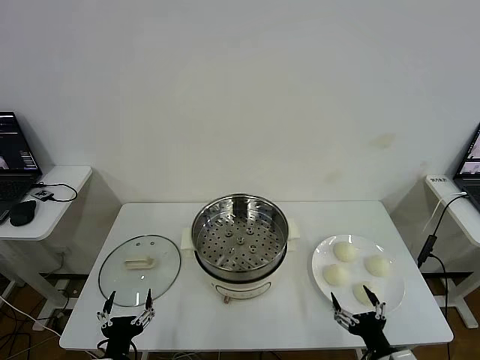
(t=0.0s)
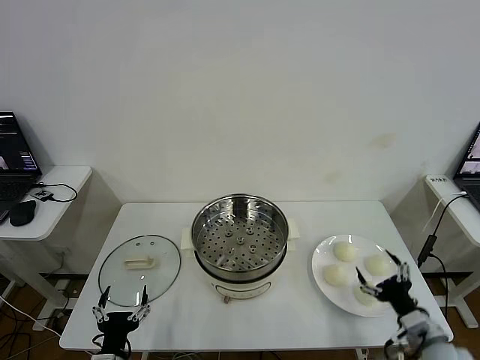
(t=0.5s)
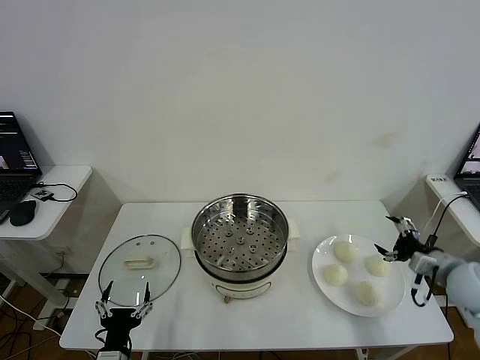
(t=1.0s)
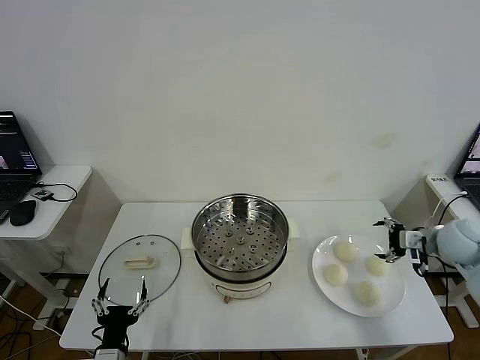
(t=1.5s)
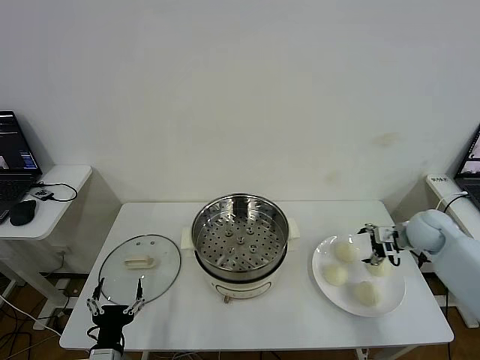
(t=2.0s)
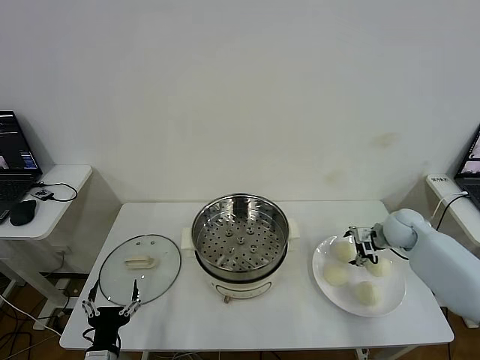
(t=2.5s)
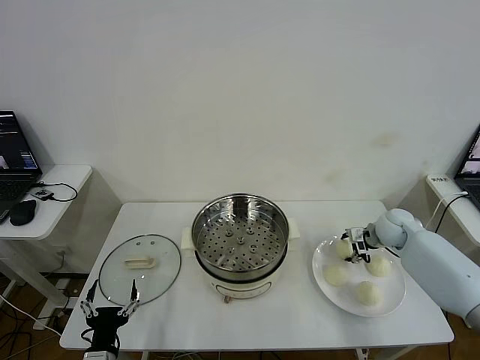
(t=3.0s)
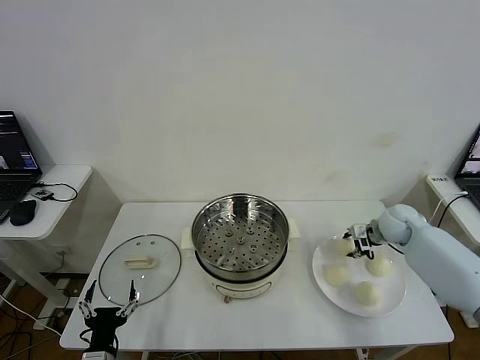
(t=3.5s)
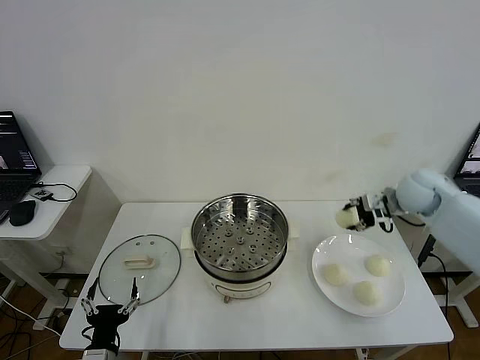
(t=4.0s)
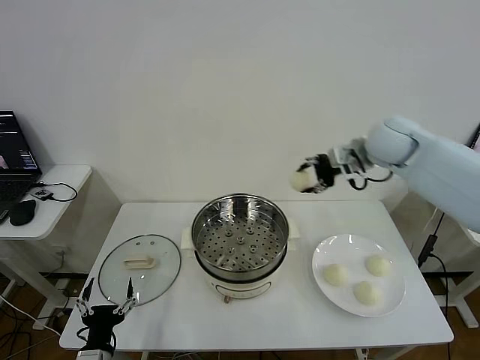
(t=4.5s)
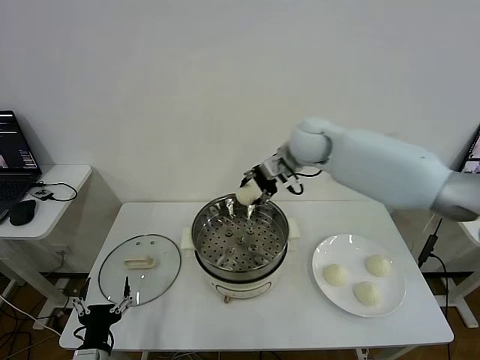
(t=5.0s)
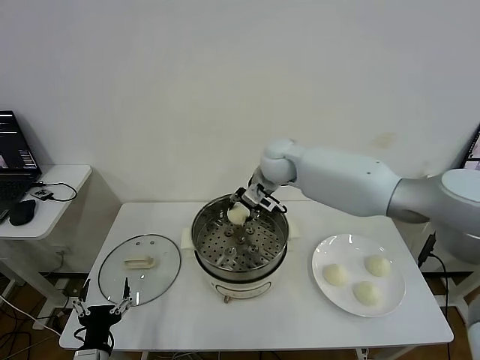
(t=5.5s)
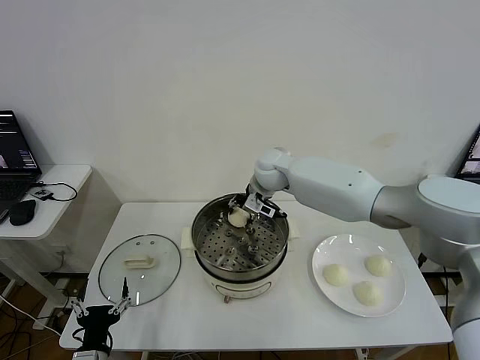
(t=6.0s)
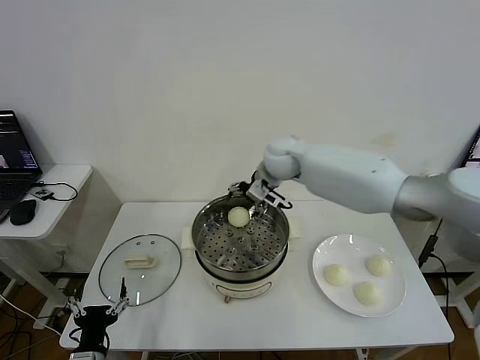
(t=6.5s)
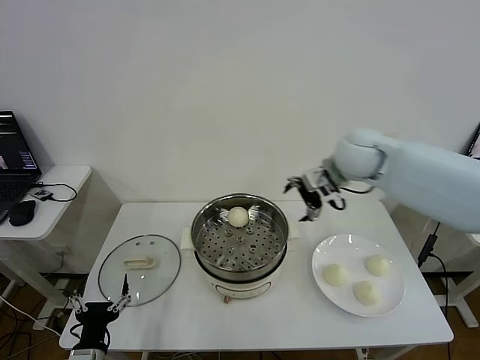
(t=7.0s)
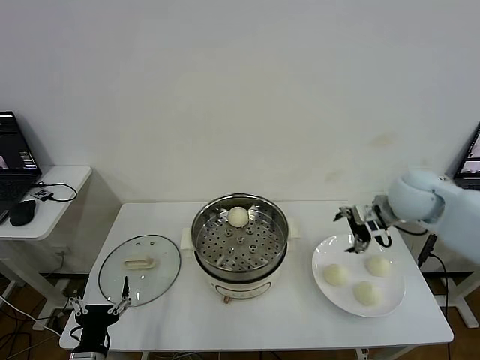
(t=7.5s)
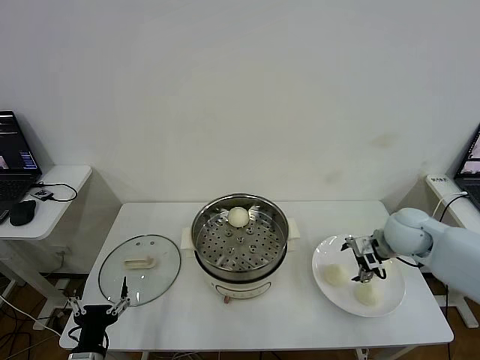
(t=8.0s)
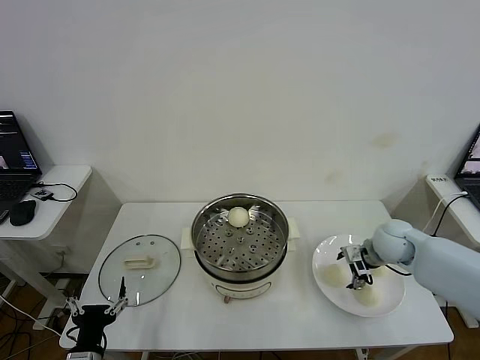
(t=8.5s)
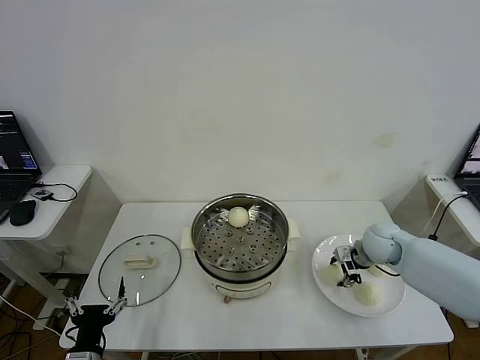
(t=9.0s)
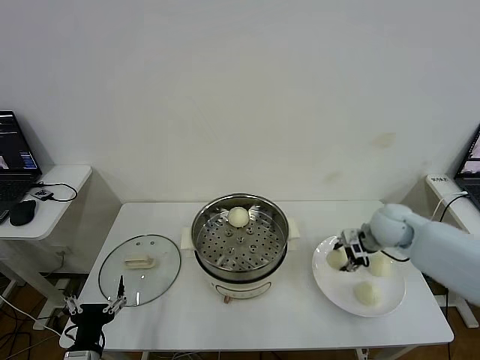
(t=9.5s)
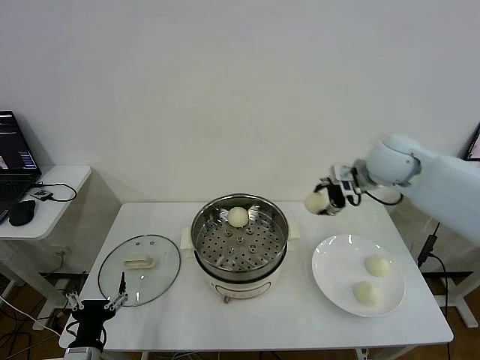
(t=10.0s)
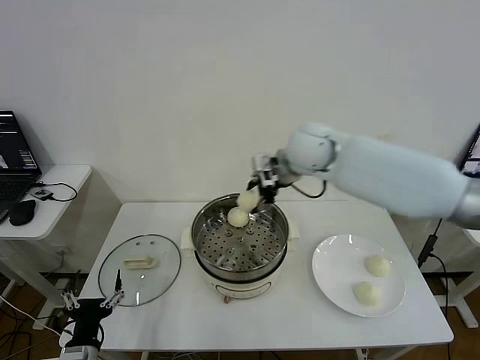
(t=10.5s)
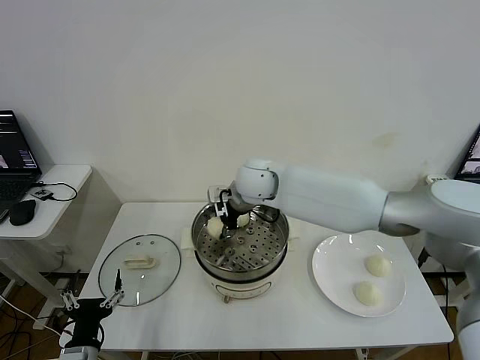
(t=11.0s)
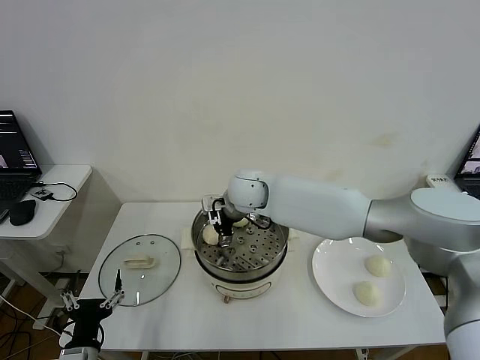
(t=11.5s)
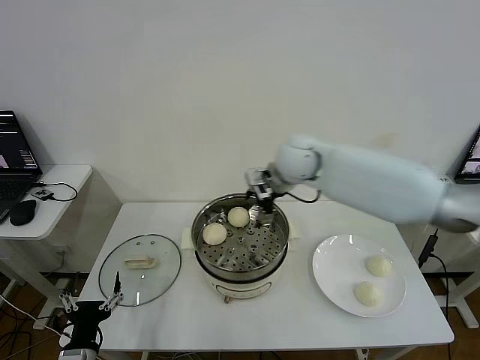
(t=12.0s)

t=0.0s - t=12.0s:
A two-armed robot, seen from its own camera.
Step, t=0.0s - t=3.0s: Grasp the baozi in the plate with right gripper.
Step, t=3.5s - t=6.0s: Place the baozi on the steamer with right gripper.
Step, t=6.5s - t=9.0s: Grasp the baozi in the plate with right gripper.
Step, t=9.5s - t=11.5s: Place the baozi on the steamer with right gripper.
t=2.0s - t=4.0s: The right gripper shifts roughly 15 cm upward, and closes up.
t=4.0s - t=6.0s: The right gripper heads to the left, covering about 30 cm, and opens up.
t=6.0s - t=8.0s: The right gripper moves to the right and backward, approximately 30 cm, and opens.
t=8.0s - t=10.0s: The right gripper travels upward, to the left and forward by approximately 20 cm, and closes up.
t=10.0s - t=12.0s: The right gripper heads to the left, covering roughly 10 cm, and opens.

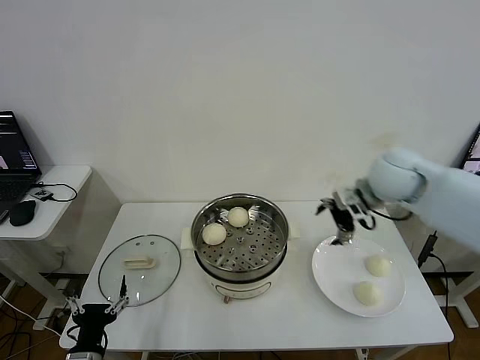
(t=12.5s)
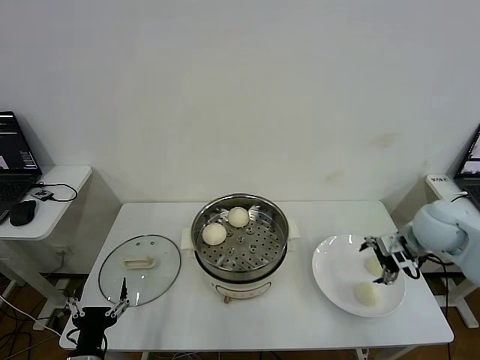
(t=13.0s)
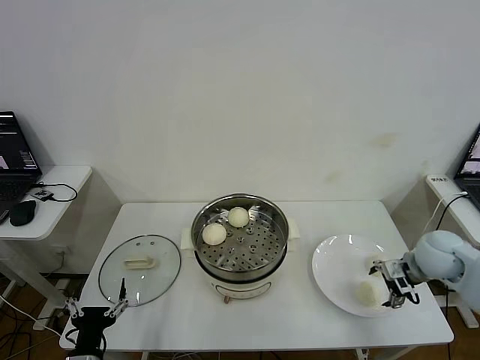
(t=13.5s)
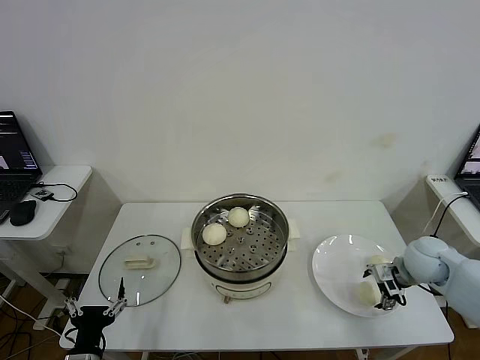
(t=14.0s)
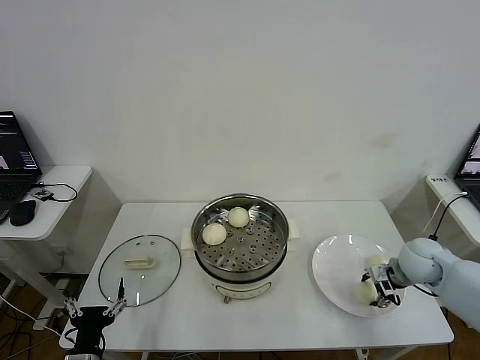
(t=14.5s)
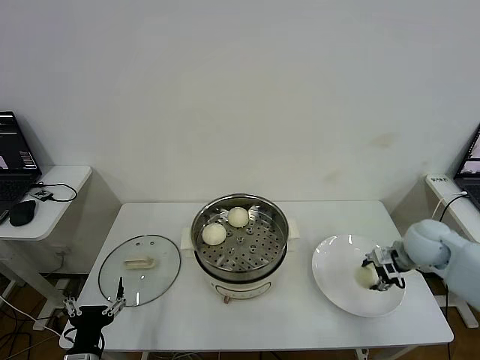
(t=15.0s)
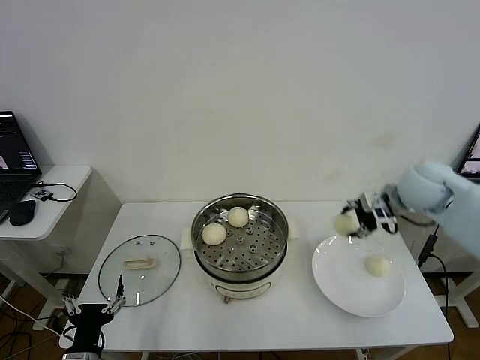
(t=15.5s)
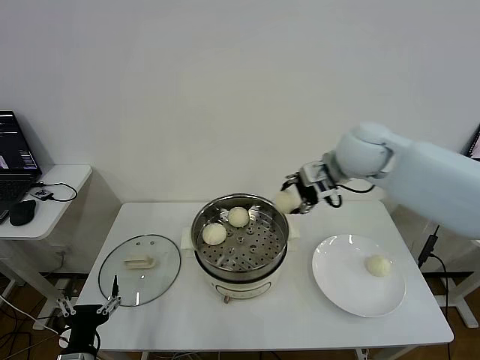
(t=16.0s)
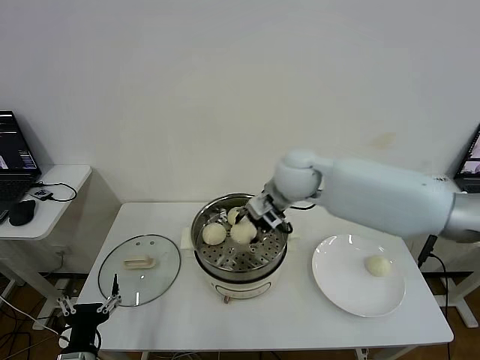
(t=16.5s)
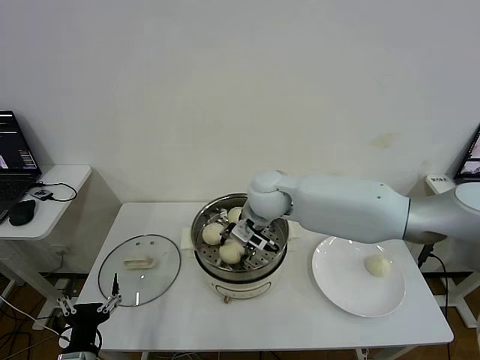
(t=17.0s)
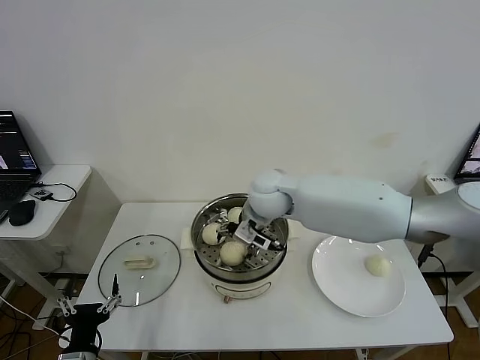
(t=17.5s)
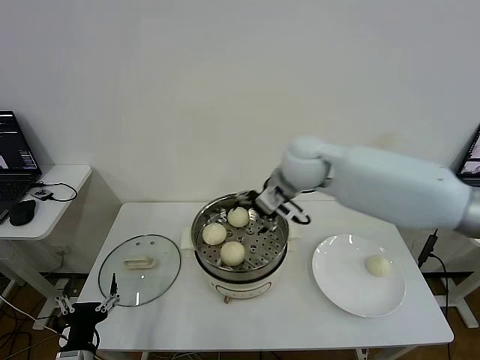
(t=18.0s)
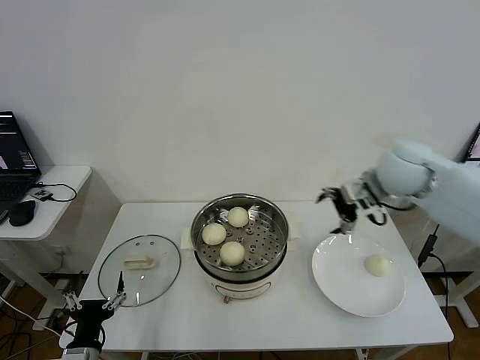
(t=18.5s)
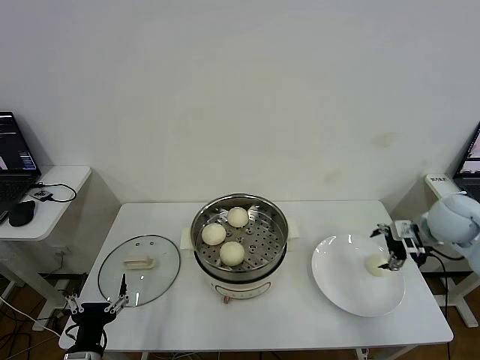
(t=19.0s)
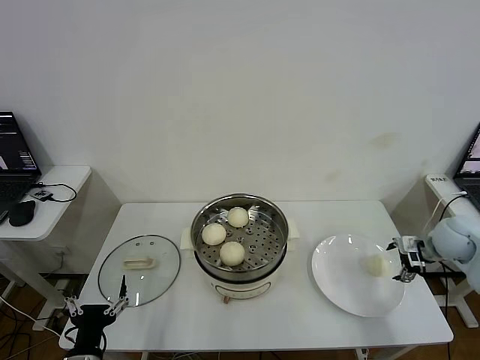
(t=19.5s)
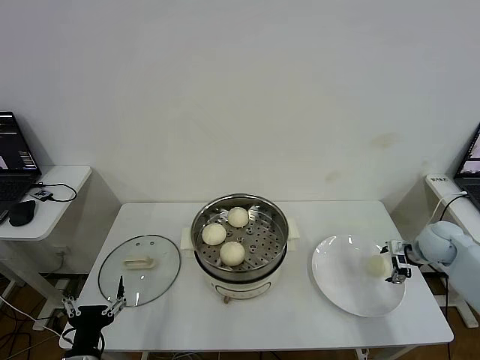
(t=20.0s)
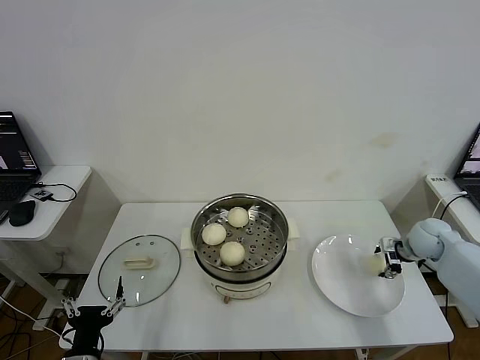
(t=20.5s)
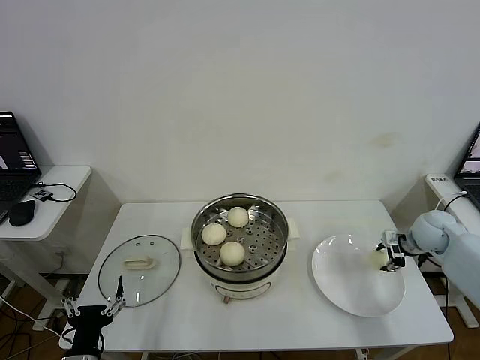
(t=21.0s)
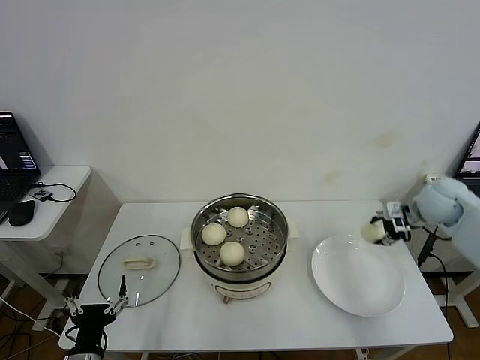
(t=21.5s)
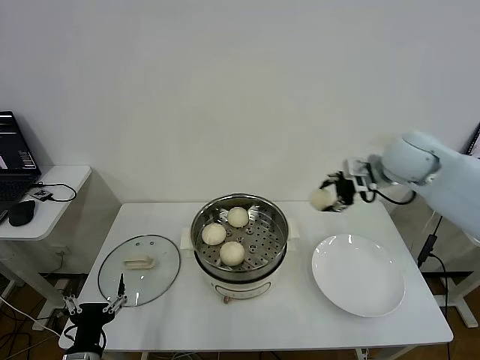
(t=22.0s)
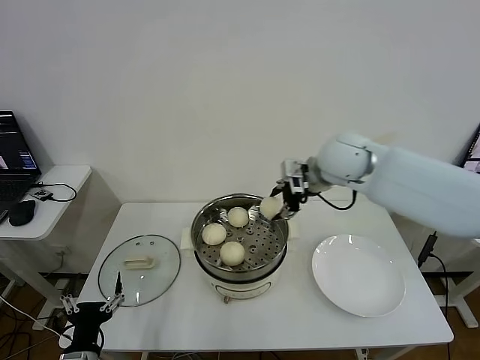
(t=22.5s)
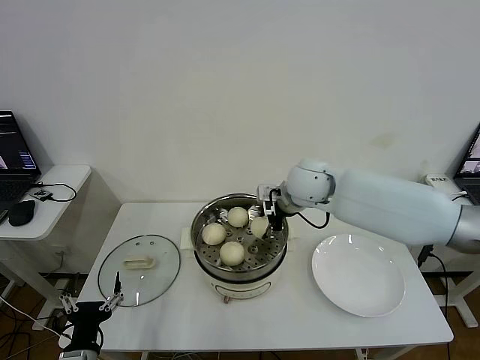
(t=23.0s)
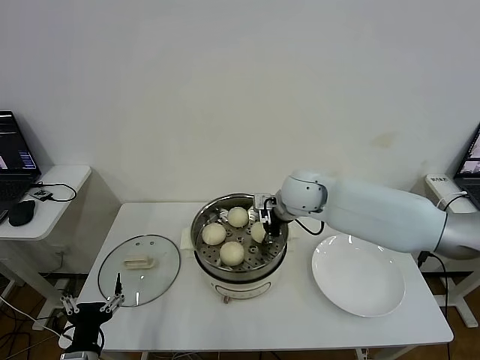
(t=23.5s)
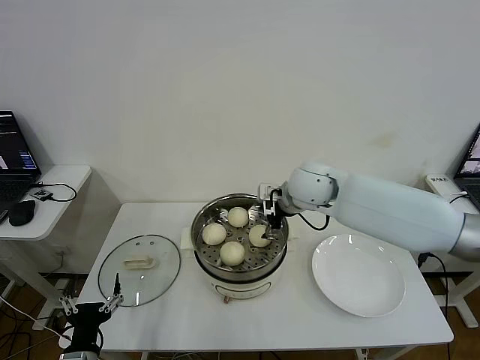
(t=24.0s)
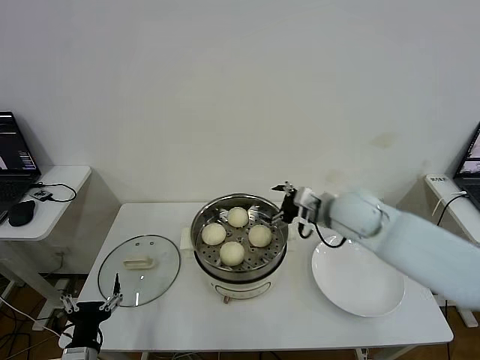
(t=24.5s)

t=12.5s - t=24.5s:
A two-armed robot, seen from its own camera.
Step, t=12.5s - t=14.5s: Grasp the baozi in the plate with right gripper.
Step, t=15.0s - t=17.0s: Place the baozi on the steamer with right gripper.
Step, t=17.5s - t=20.5s: Grasp the baozi in the plate with right gripper.
Step, t=21.0s - t=23.5s: Place the baozi on the steamer with right gripper.
t=12.5s - t=14.5s: The right gripper goes some 20 cm downward and to the right, and closes up.
t=14.5s - t=16.5s: The right gripper goes some 35 cm to the left and upward.
t=16.5s - t=18.5s: The right gripper shifts roughly 20 cm to the right, and opens its fingers.
t=18.5s - t=20.5s: The right gripper moves downward and to the right, some 25 cm, and closes.
t=20.5s - t=22.5s: The right gripper shifts about 35 cm to the left and upward, and closes its fingers.
t=22.5s - t=24.5s: The right gripper goes roughly 10 cm downward and backward, and opens up.

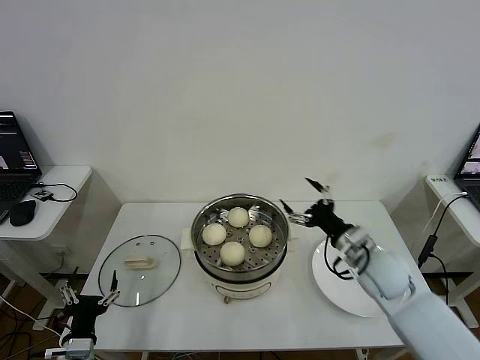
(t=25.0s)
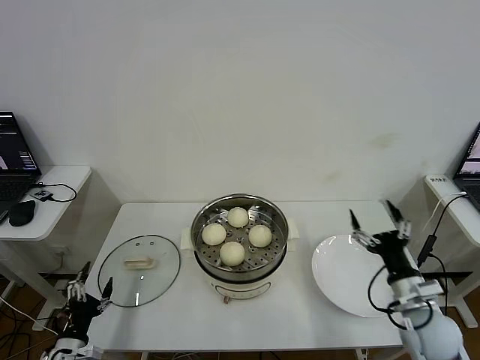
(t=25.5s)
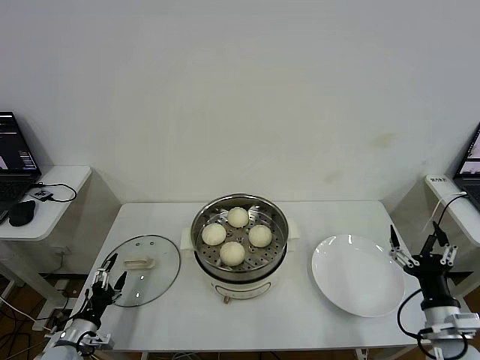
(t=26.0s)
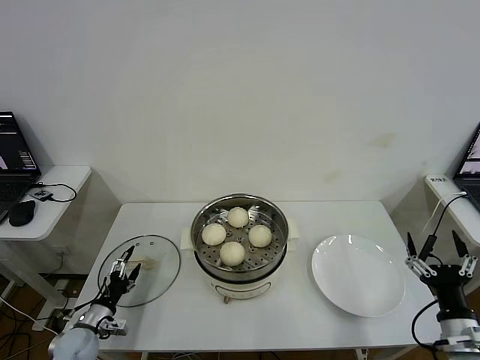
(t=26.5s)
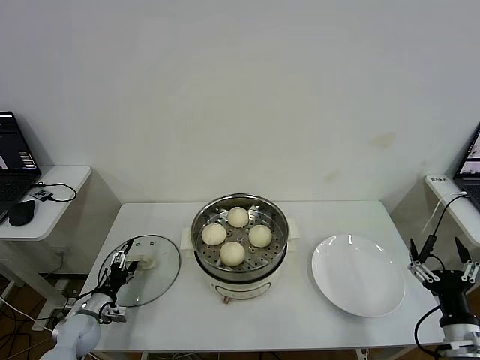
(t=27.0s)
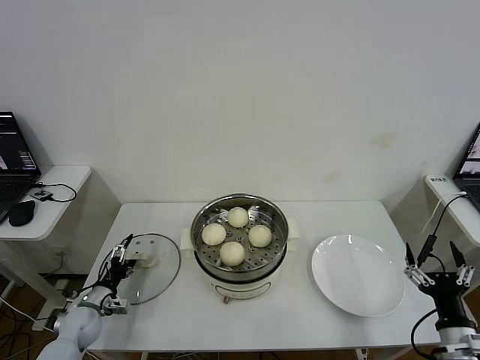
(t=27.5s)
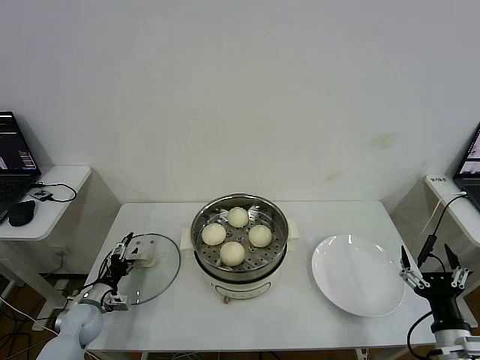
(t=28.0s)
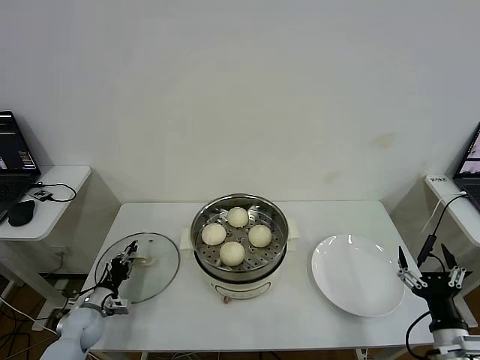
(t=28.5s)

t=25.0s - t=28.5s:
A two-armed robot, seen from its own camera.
t=25.0s - t=27.0s: The left gripper goes roughly 20 cm forward, downward and to the left; the right gripper heads backward and to the right, covering roughly 25 cm.
t=27.0s - t=28.5s: The left gripper closes up.
